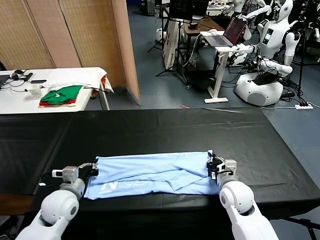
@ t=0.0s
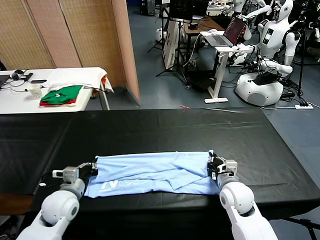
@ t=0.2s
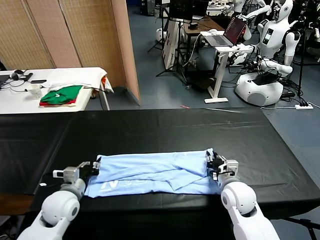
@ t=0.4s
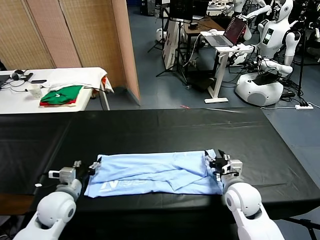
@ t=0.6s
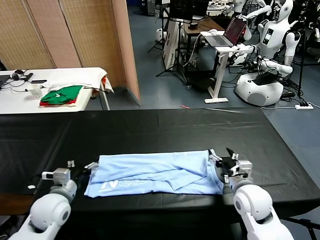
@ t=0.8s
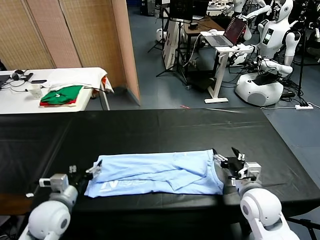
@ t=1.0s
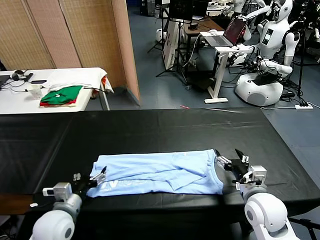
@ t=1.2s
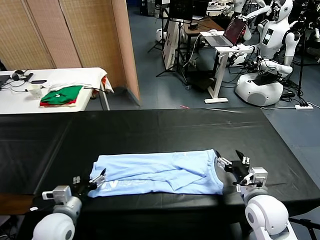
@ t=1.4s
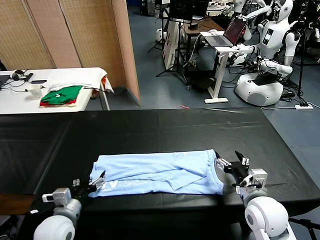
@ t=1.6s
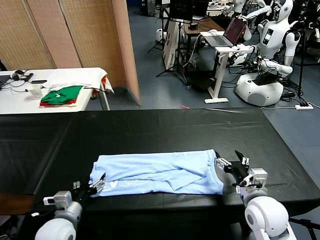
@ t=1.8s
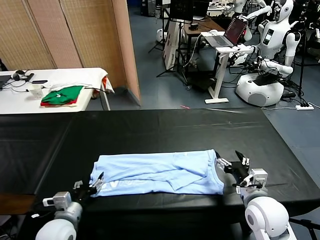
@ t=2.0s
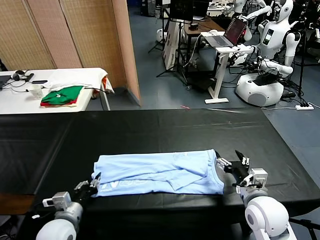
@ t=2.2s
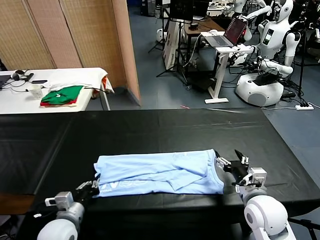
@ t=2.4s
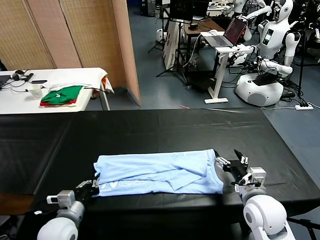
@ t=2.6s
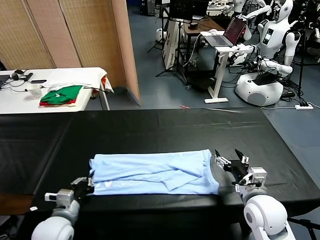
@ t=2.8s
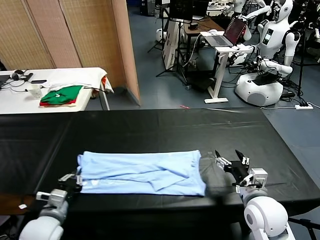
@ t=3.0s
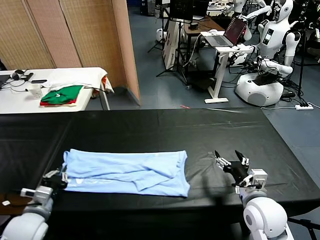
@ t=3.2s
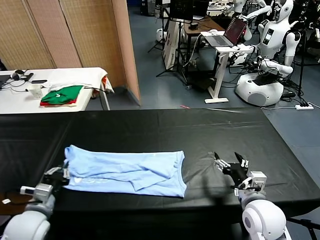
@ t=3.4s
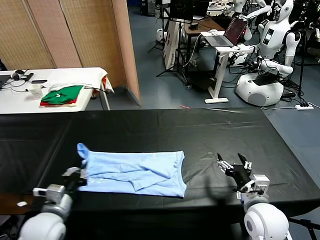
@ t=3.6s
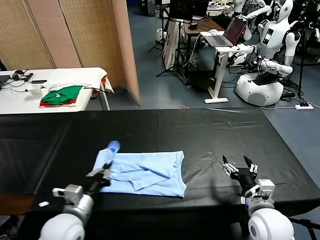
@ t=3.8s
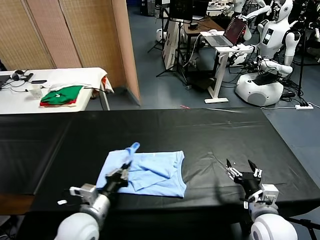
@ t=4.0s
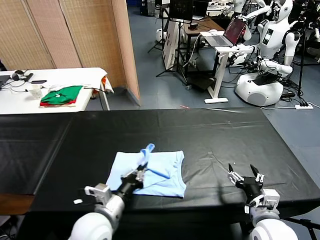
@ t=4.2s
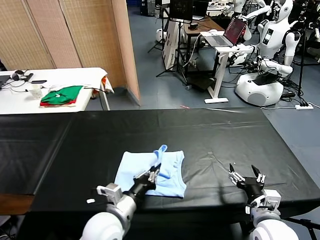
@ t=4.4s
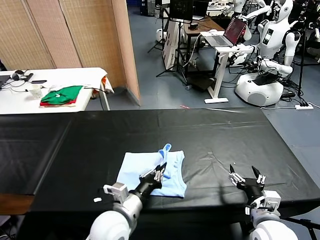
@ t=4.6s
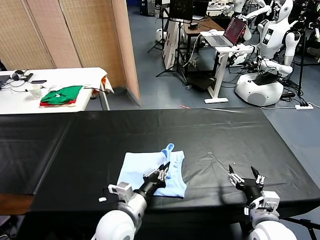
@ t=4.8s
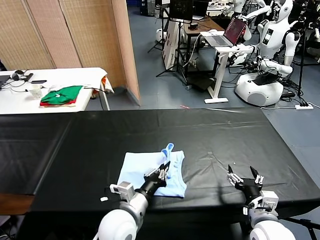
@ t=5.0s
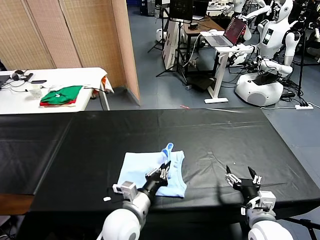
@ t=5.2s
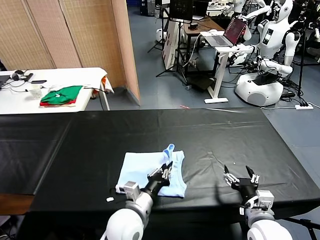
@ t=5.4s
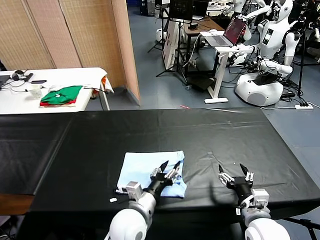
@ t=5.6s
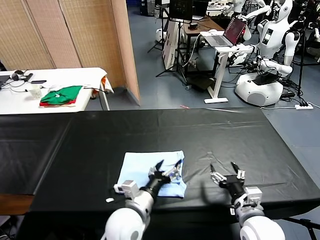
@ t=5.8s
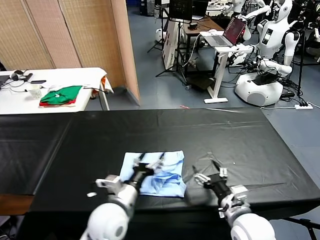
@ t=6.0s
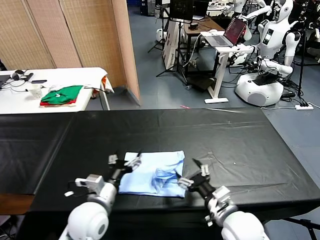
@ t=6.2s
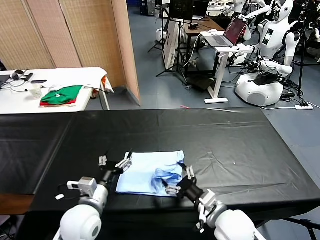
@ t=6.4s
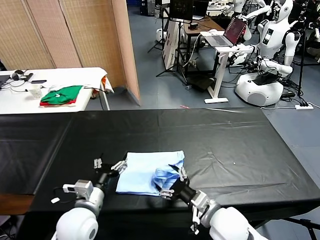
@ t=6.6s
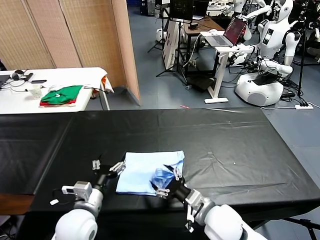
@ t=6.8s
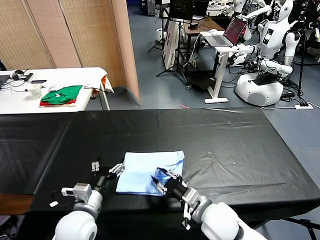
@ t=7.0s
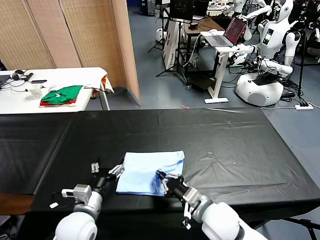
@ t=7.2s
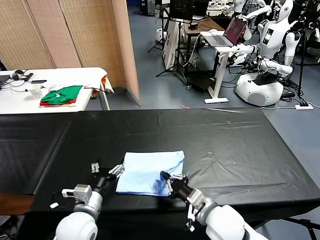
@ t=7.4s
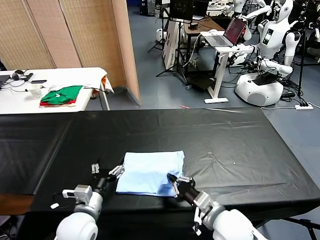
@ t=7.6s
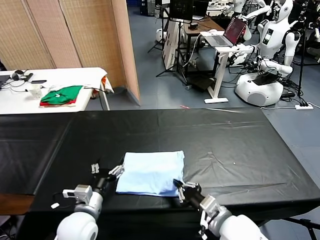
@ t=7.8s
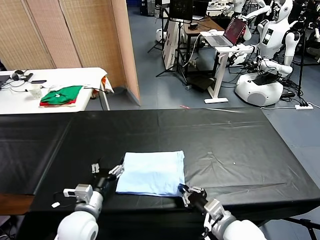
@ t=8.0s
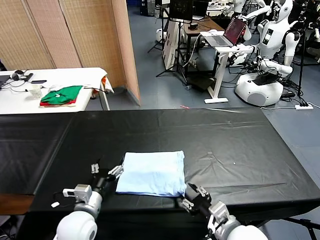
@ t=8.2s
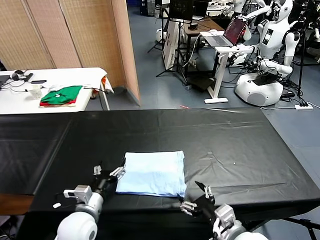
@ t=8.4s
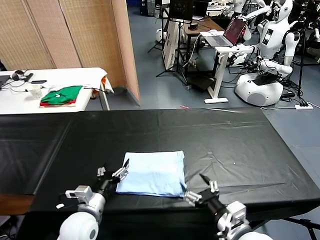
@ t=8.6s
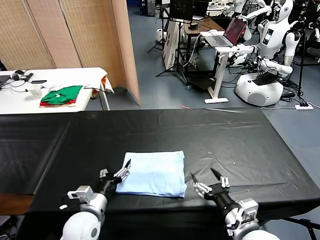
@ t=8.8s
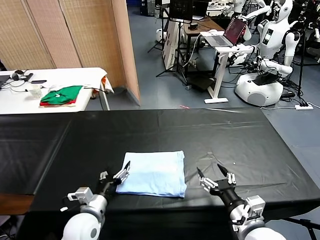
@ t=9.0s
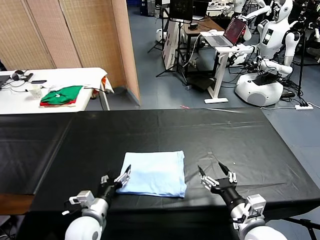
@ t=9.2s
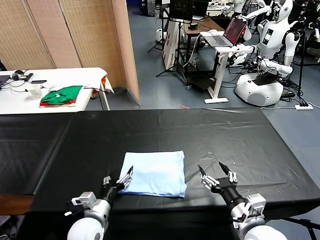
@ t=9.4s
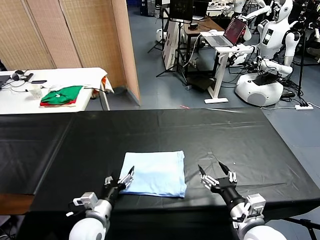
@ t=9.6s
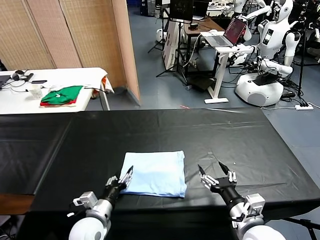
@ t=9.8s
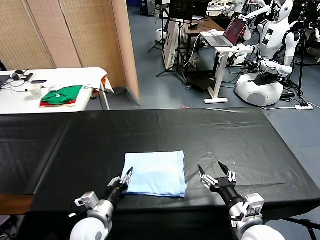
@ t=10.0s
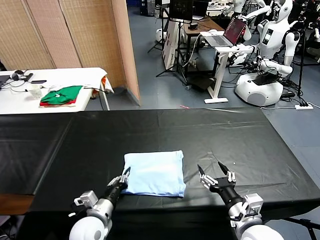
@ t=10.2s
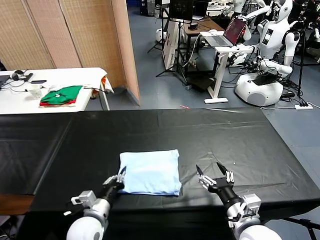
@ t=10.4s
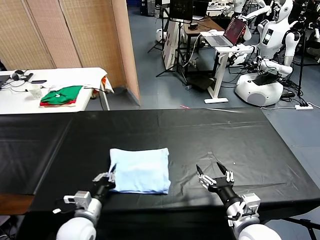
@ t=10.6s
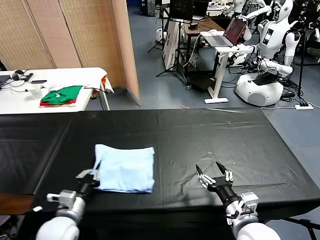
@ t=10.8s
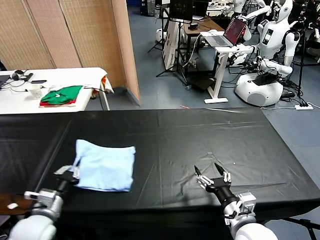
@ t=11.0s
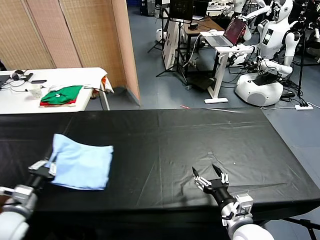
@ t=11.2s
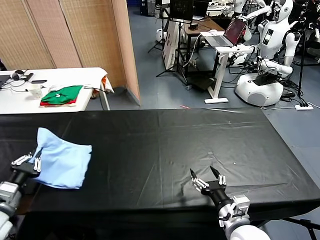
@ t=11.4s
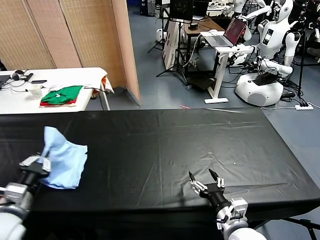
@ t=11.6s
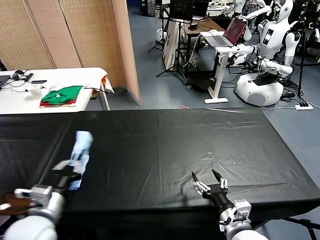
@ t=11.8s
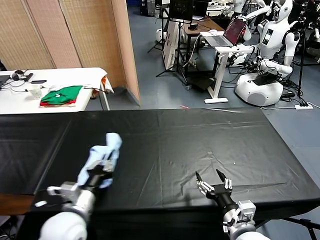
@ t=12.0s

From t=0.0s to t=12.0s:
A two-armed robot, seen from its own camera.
Task of the whole recording: fold and organize the clothes.
Step, from t=0.0s to t=2.4s: use the left gripper to clamp the left edge of the fabric.
Step, from t=2.6s to t=5.4s: use the left gripper to drag the left edge of the fabric to the left and folds it over the right edge.
From t=0.0s to t=1.6s: The right gripper moves backward and upward, about 10 cm, and opens, while the left gripper is displaced backward by some 5 cm, and opens its fingers.
From t=1.6s to t=3.0s: The left gripper closes up.
From t=3.0s to t=4.4s: The left gripper heads to the right, covering about 20 cm. The right gripper is displaced backward by roughly 5 cm.
From t=4.4s to t=6.0s: The left gripper opens, while the right gripper goes roughly 5 cm to the left.
From t=6.0s to t=7.6s: The left gripper goes roughly 10 cm to the left, while the right gripper closes.
From t=7.6s to t=9.0s: The right gripper moves to the right, about 5 cm, and opens. Meanwhile the left gripper shifts by approximately 5 cm.
From t=9.0s to t=10.4s: The left gripper closes its fingers.
From t=10.4s to t=12.0s: The left gripper shifts about 10 cm upward, and goes to the left and returns, roughly 20 cm each way.

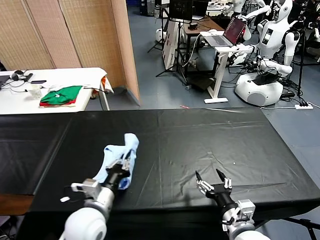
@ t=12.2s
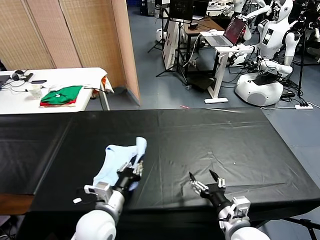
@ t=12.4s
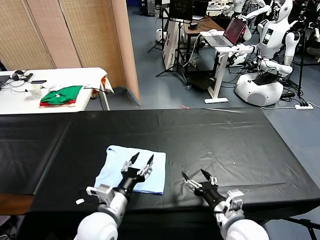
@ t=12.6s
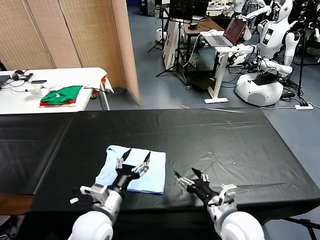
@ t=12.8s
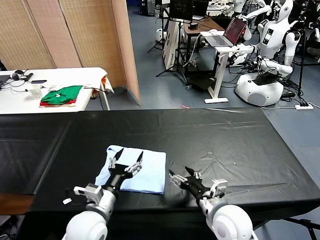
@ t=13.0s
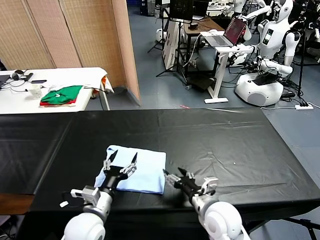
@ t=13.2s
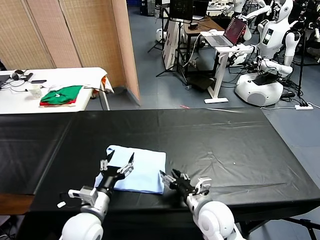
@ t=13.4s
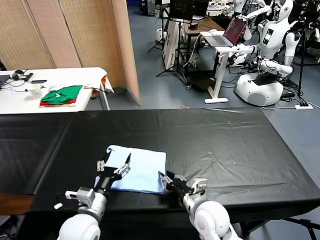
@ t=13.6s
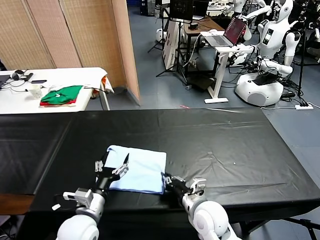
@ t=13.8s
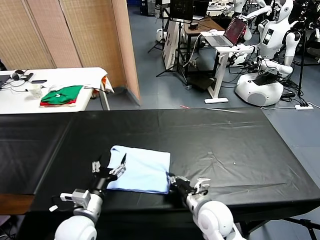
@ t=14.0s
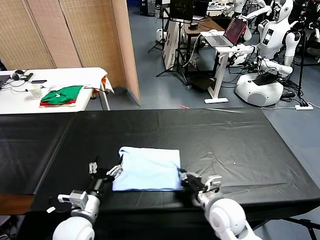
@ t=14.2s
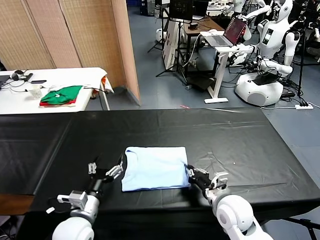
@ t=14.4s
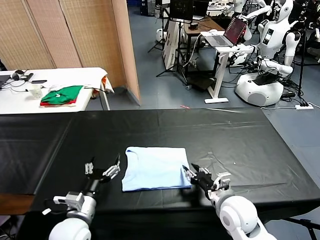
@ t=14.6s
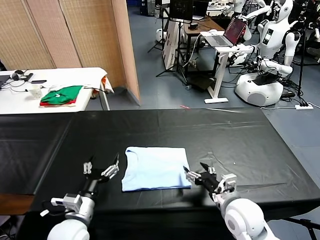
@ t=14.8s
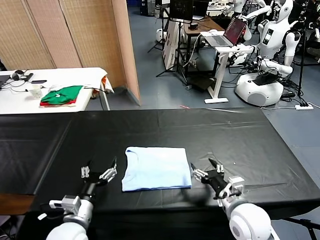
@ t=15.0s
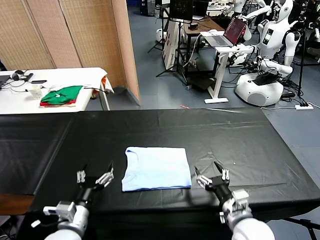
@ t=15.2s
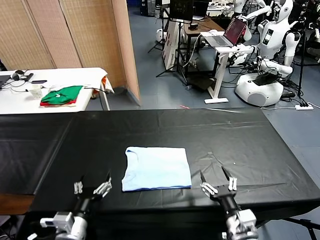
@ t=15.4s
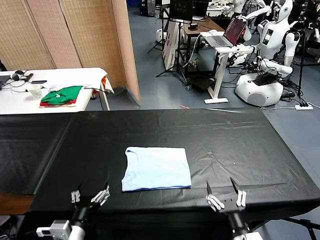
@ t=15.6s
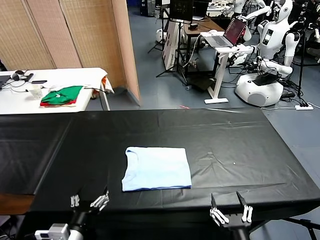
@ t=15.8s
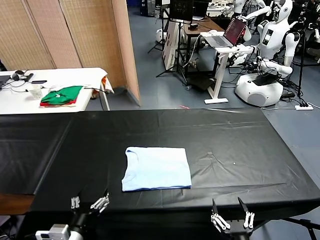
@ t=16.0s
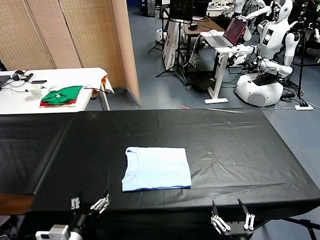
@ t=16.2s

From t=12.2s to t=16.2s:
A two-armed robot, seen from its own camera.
Task of the whole recording: fold and organize the clothes.
Step, from t=12.6s to t=14.6s: Drag the clothes to the center of the table.
From t=12.2s to t=13.6s: The right gripper moves forward and to the left, approximately 10 cm, and closes; the left gripper opens its fingers.
From t=13.6s to t=14.8s: The right gripper goes some 10 cm to the right, and closes and opens again.
From t=14.8s to t=16.2s: The right gripper moves backward, roughly 20 cm. The left gripper goes roughly 10 cm backward.
